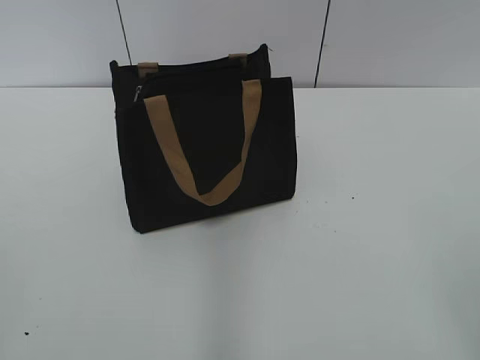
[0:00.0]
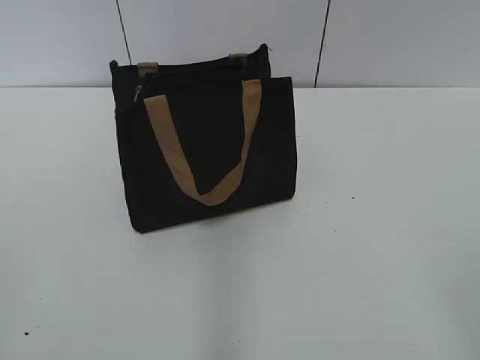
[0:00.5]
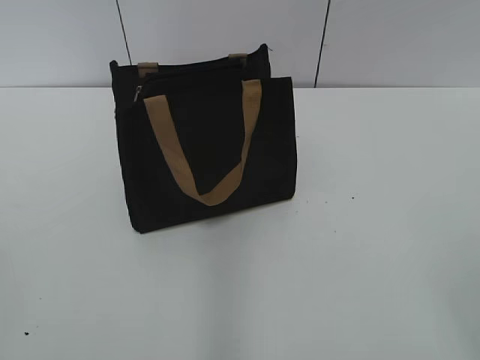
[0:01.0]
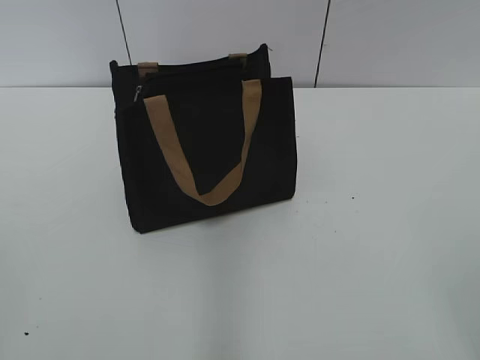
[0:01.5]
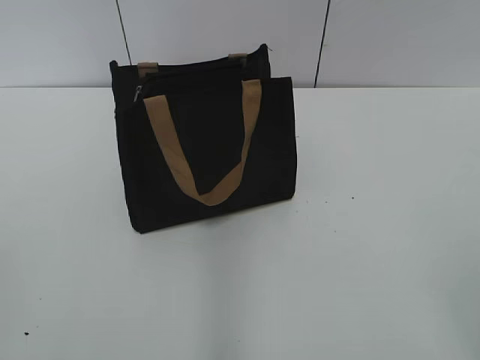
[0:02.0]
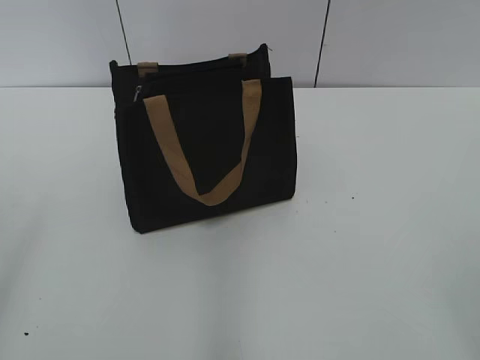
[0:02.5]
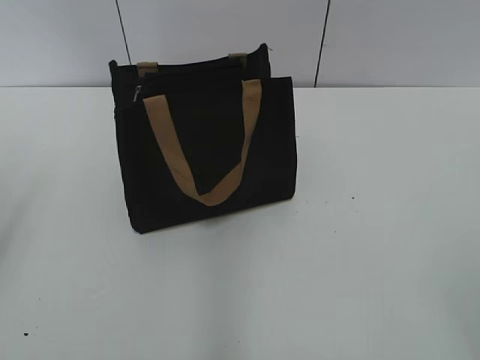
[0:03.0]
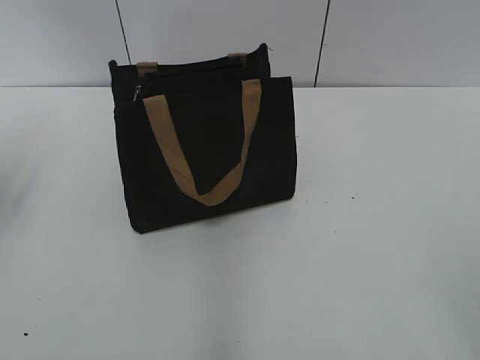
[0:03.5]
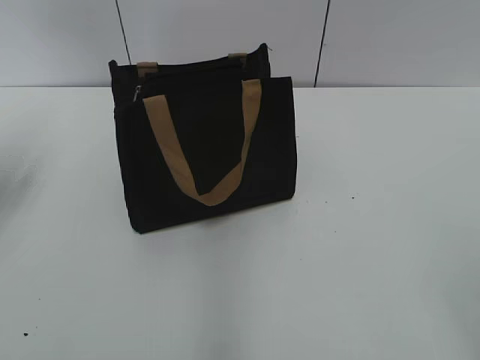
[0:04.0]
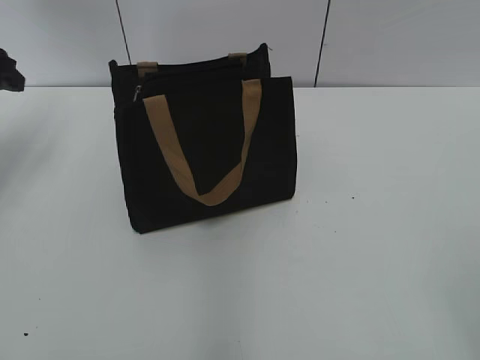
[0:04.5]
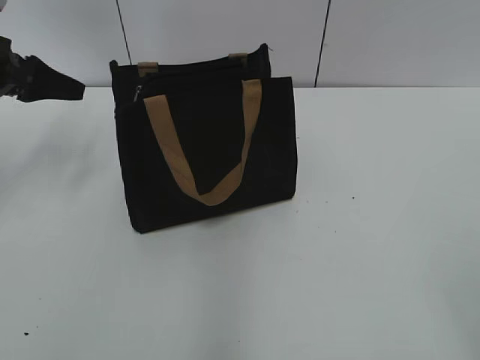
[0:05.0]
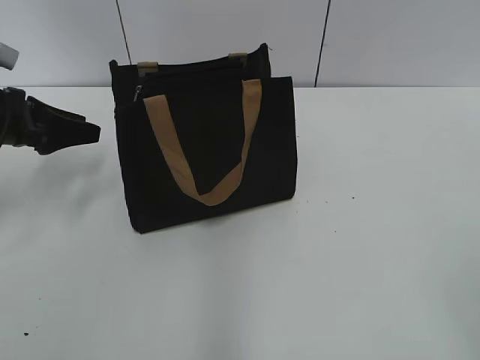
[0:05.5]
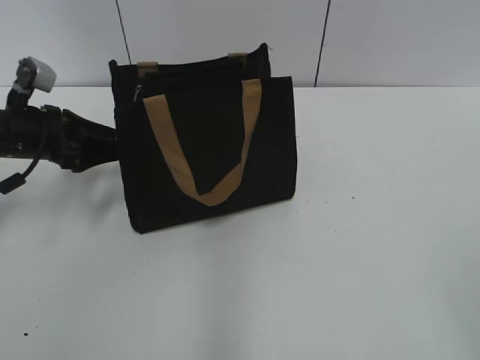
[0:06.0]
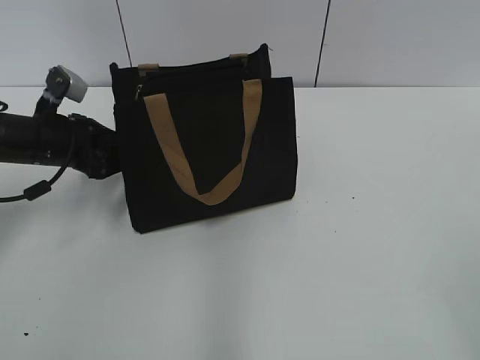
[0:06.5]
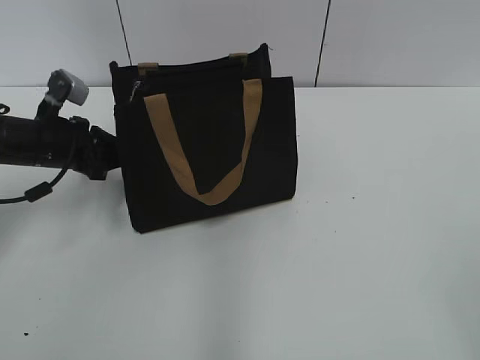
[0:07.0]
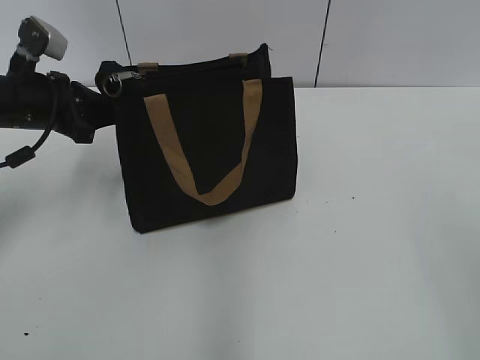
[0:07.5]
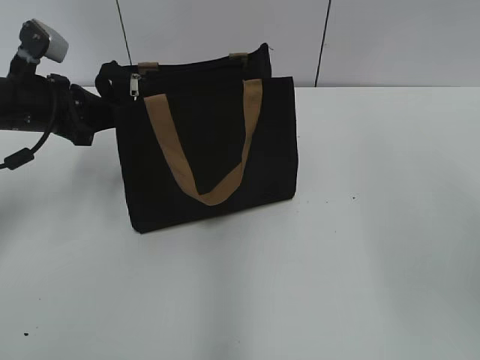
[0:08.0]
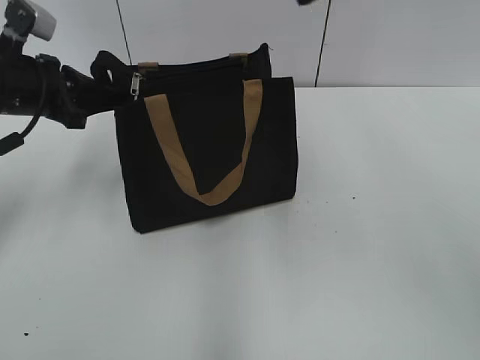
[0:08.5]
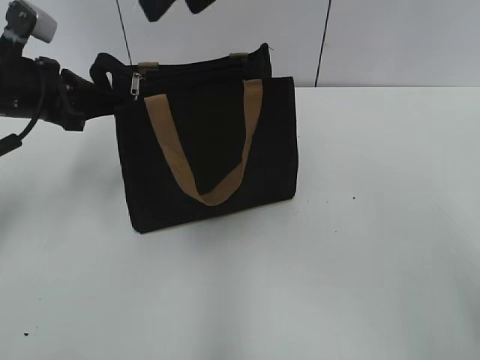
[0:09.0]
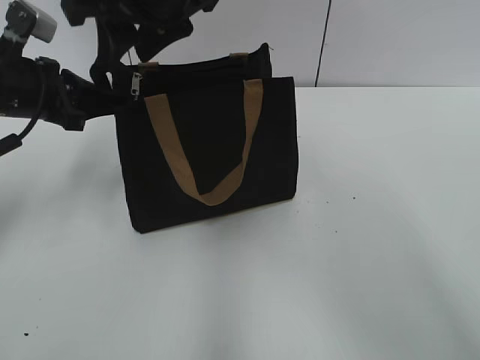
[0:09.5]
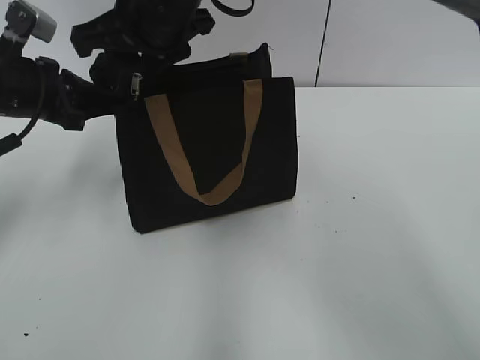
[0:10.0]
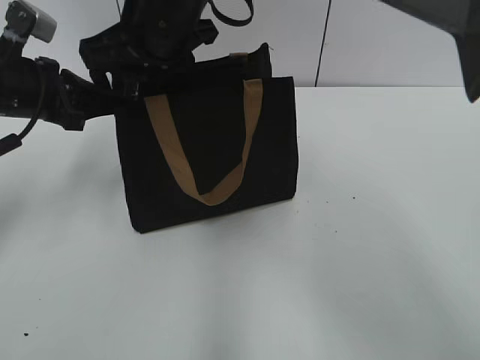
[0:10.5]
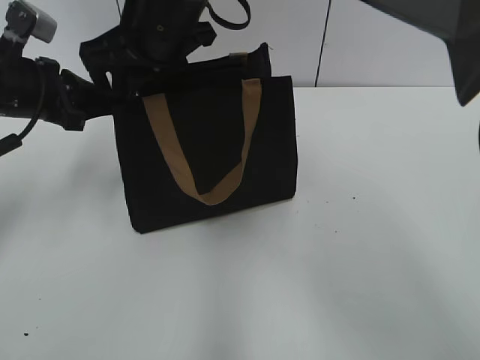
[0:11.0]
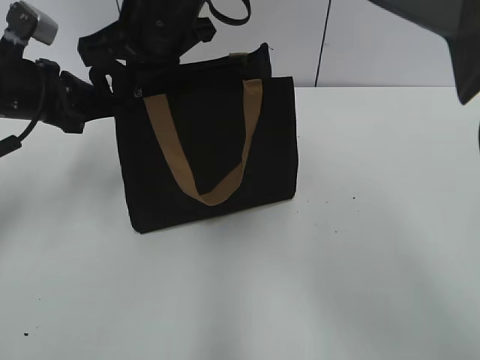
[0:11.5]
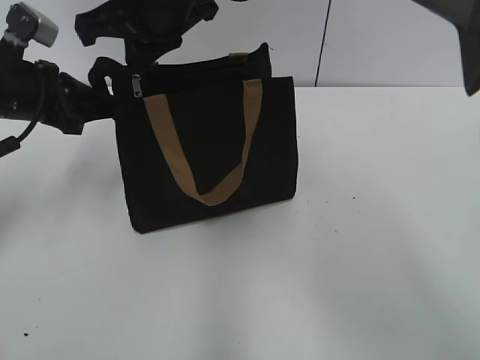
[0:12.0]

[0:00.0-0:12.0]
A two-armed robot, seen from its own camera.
0:02.0 to 0:04.0: The left gripper shifts about 35 cm forward, and opens up.
0:04.0 to 0:06.0: The left gripper is displaced downward and to the right by roughly 10 cm.
0:06.0 to 0:08.0: The left gripper changes place by approximately 5 cm, and closes up.
0:08.0 to 0:10.0: The right gripper travels to the left and forward by about 35 cm.
0:10.0 to 0:12.0: The right gripper closes.

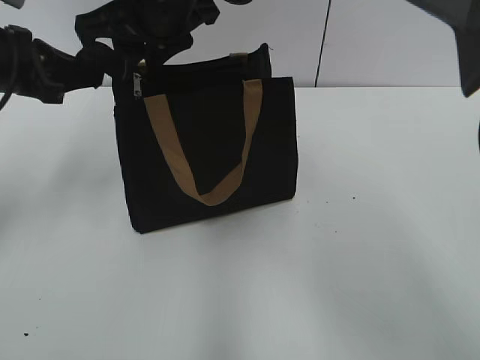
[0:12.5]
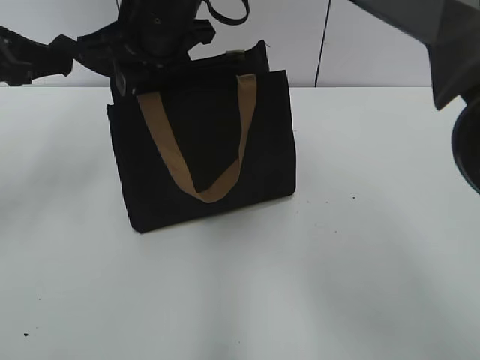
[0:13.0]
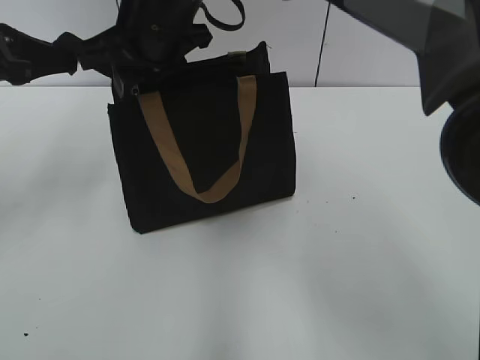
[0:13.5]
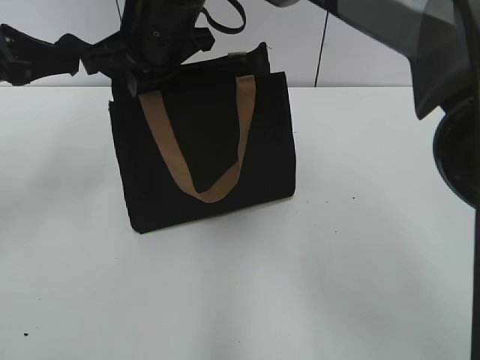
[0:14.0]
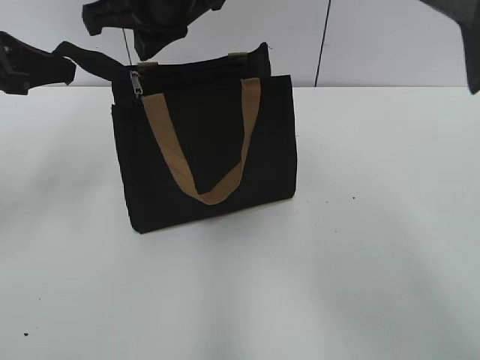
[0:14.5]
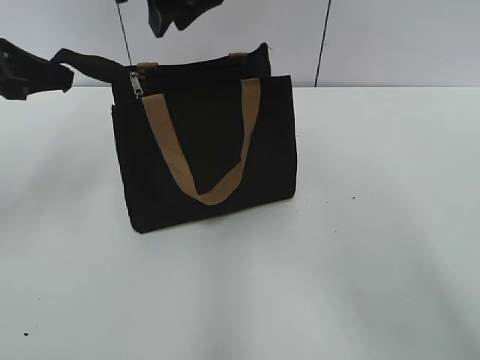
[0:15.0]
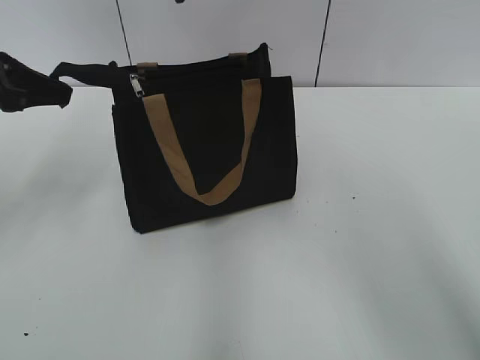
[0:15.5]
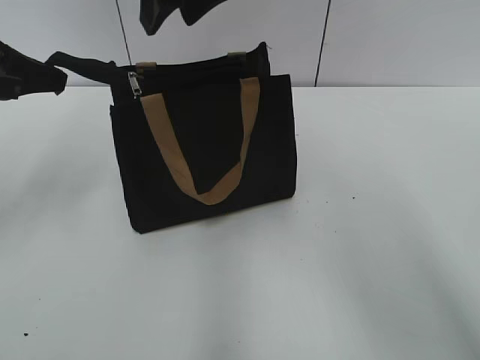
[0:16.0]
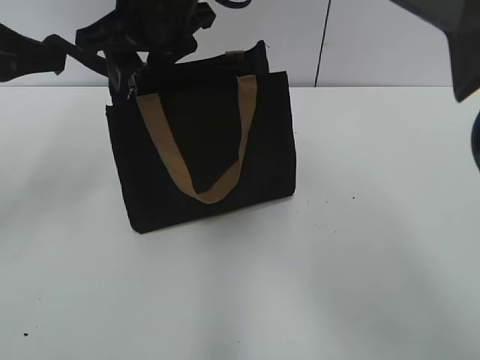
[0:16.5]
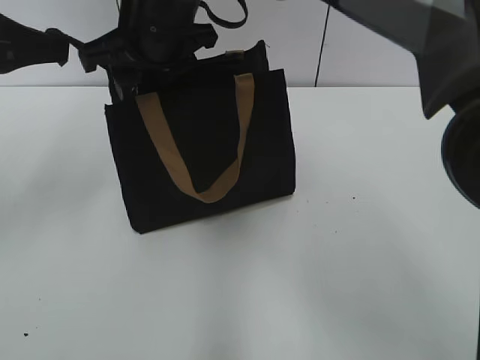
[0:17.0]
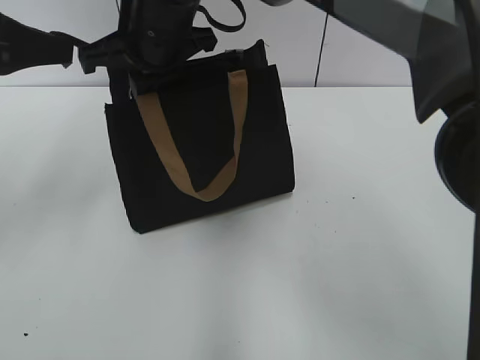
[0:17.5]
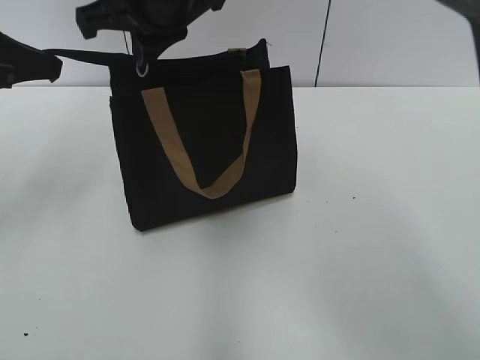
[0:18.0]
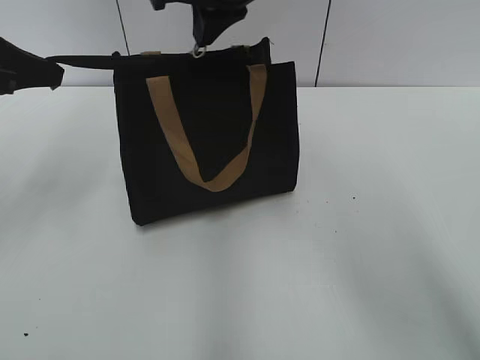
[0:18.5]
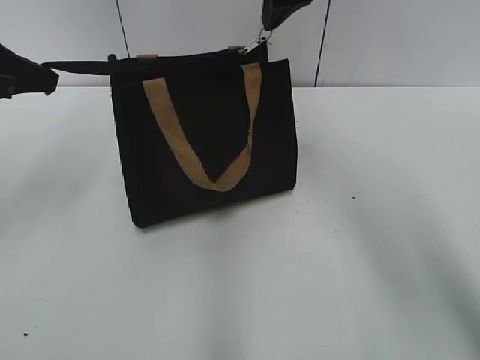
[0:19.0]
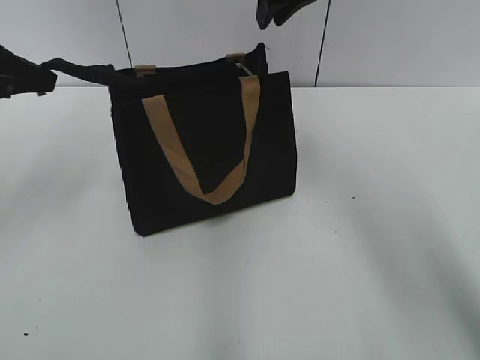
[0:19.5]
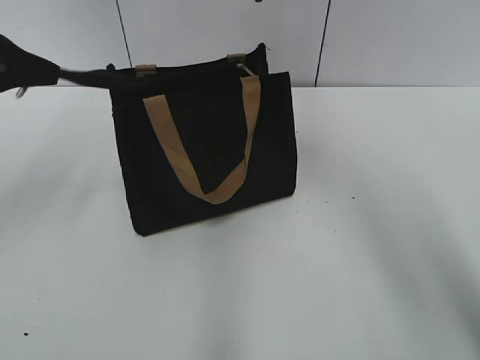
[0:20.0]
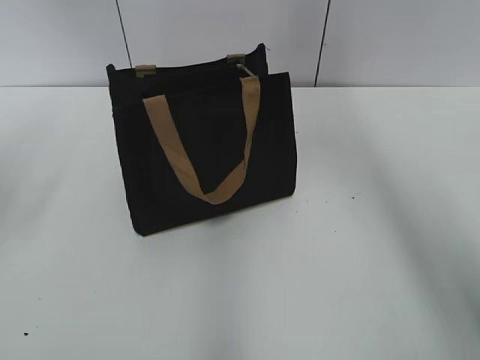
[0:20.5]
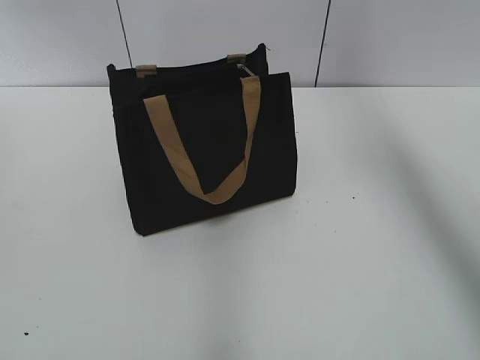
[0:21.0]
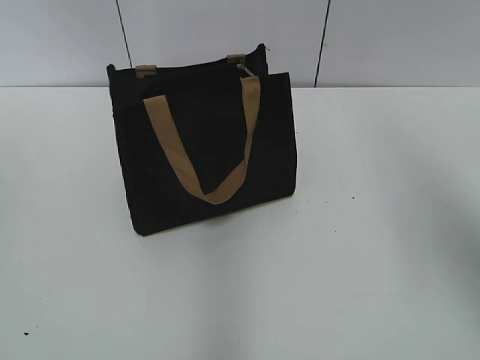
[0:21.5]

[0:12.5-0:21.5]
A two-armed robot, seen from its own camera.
Step, 0:12.5 to 0:19.5: Zip up the bag with your right hand.
0:12.5 to 0:14.5: The right gripper closes its fingers.
0:14.5 to 0:17.0: The right gripper goes upward and returns, about 5 cm each way, and opens its fingers.
0:17.0 to 0:19.5: The right gripper is displaced to the right and forward by some 15 cm, and closes its fingers.
0:19.5 to 0:21.5: The left gripper goes roughly 15 cm backward and upward, and opens its fingers, while the right gripper goes about 30 cm backward and to the right, and opens.

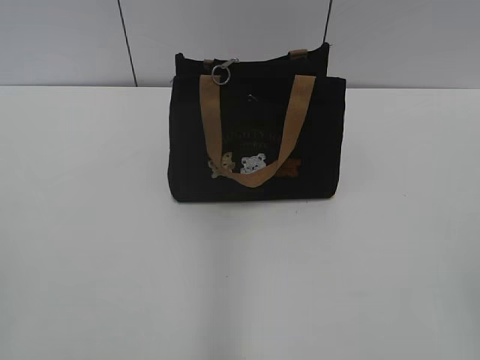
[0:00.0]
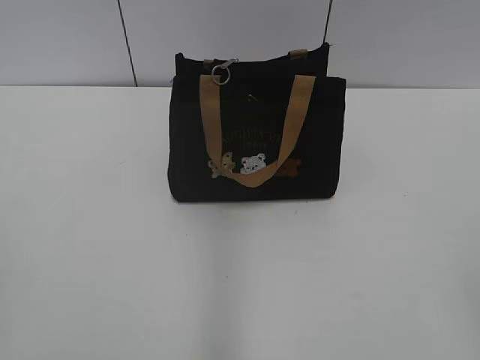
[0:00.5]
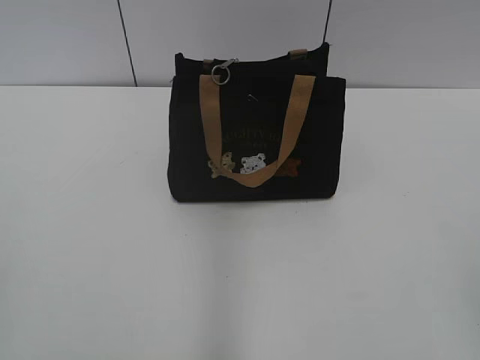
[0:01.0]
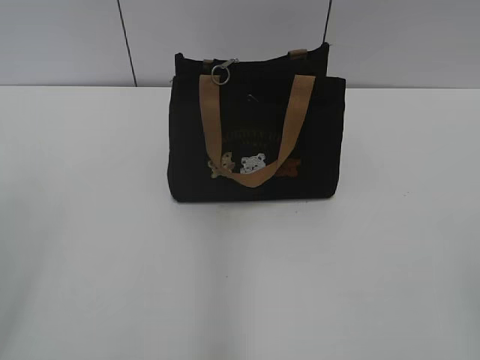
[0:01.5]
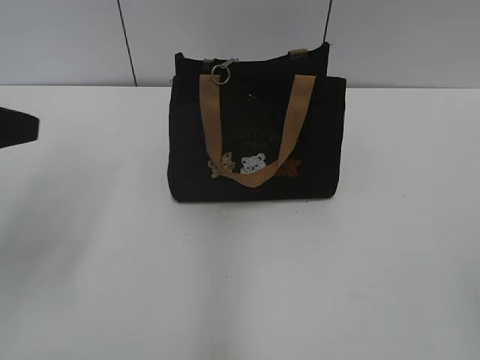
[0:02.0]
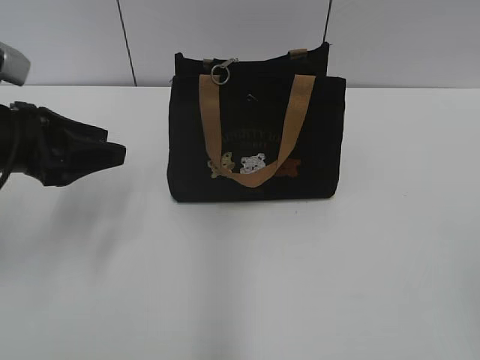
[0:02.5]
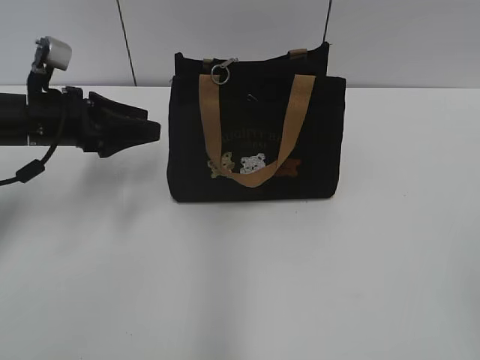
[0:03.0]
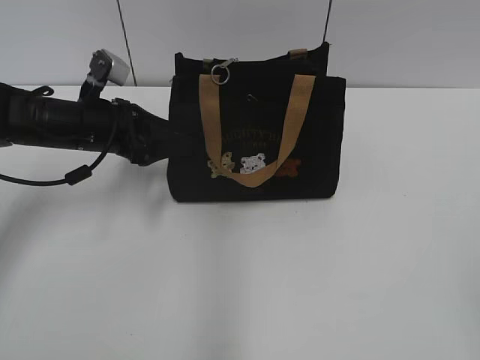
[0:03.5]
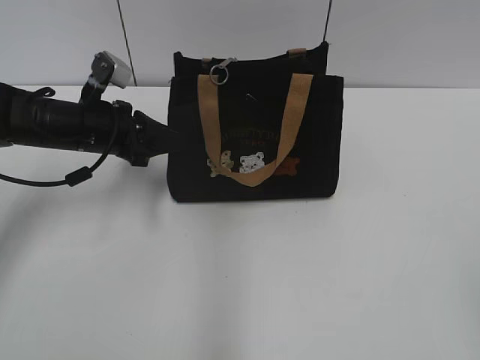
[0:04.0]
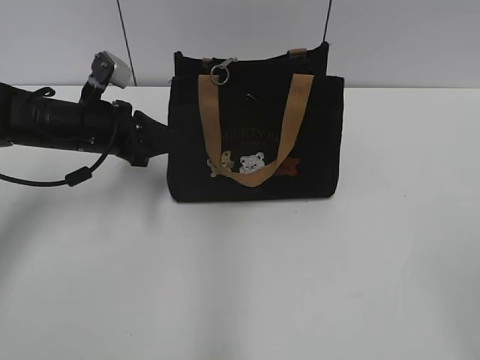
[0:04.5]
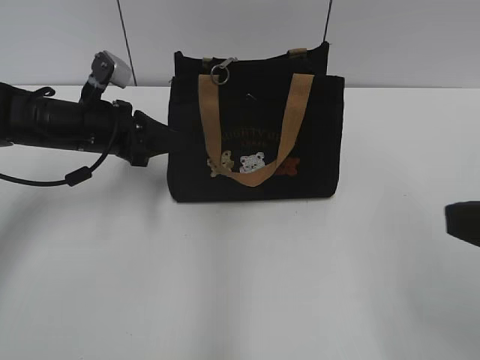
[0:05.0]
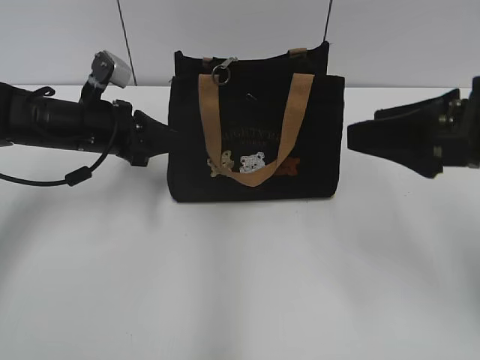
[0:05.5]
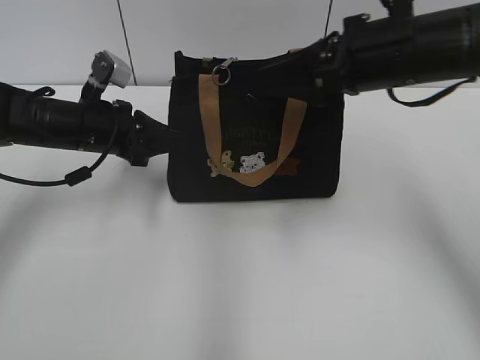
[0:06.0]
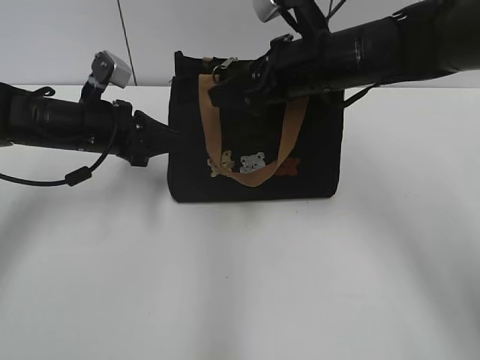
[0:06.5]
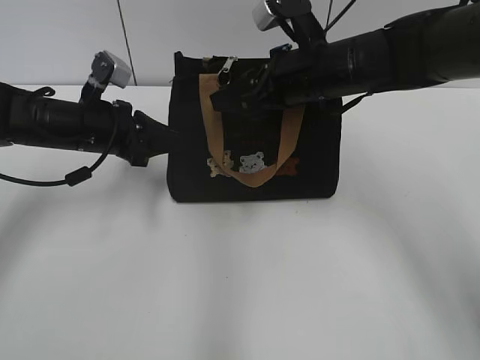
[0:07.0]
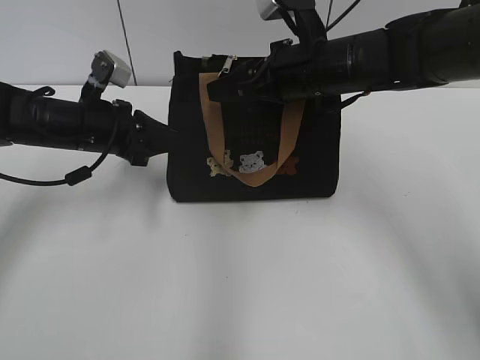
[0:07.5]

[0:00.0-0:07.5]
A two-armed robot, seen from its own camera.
0:02.0 to 0:04.0: The left gripper heads forward, downward and to the right, covering roughly 25 cm, and closes up.
0:04.0 to 0:05.5: The right gripper heads forward, covering some 20 cm.
0:05.5 to 0:07.5: The right gripper heads forward and to the left, covering approximately 20 cm.
